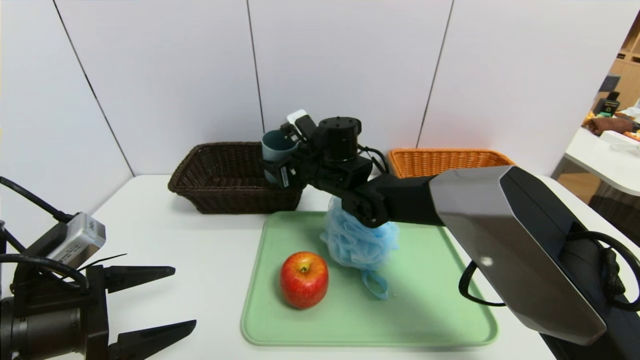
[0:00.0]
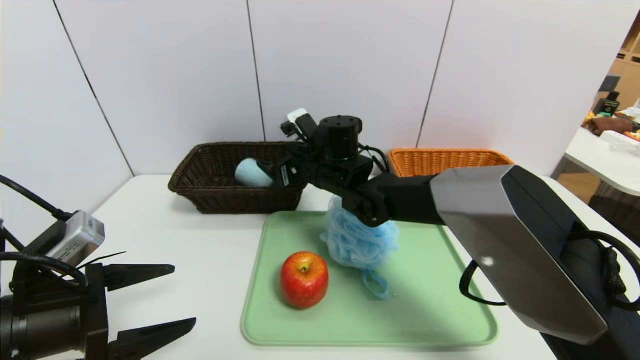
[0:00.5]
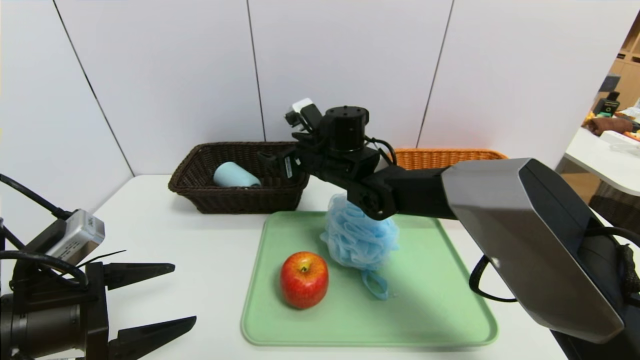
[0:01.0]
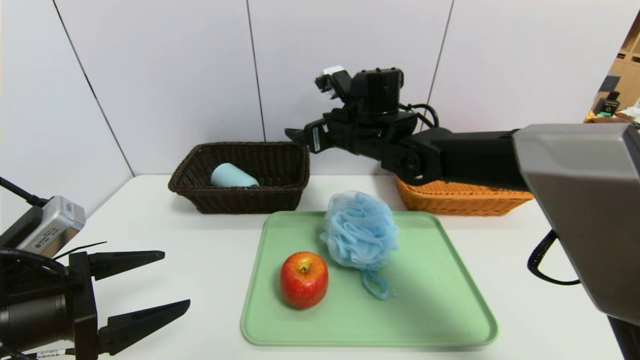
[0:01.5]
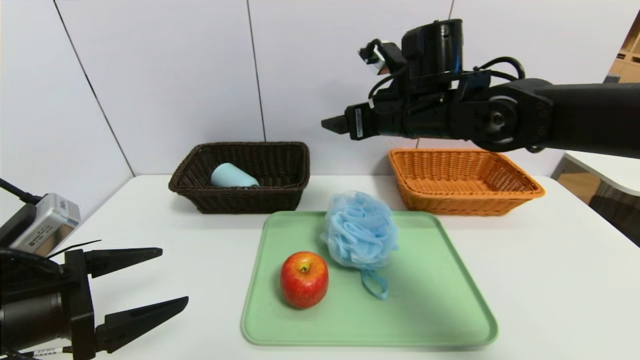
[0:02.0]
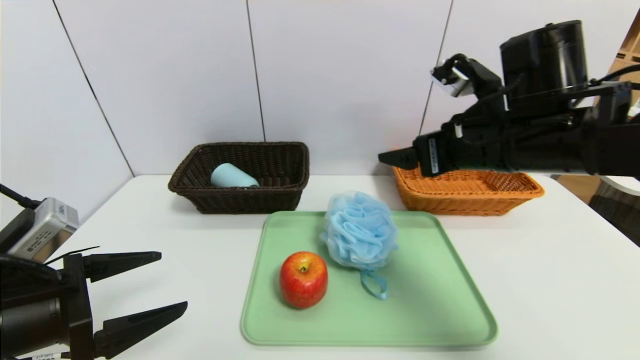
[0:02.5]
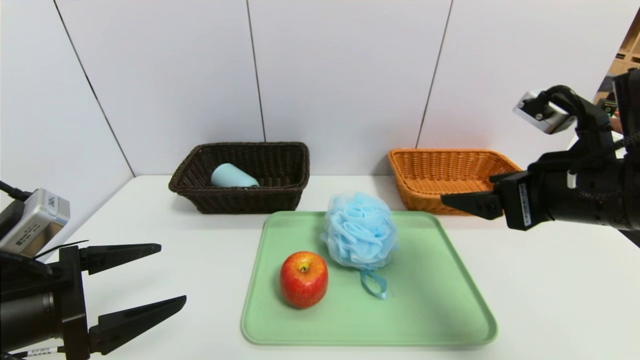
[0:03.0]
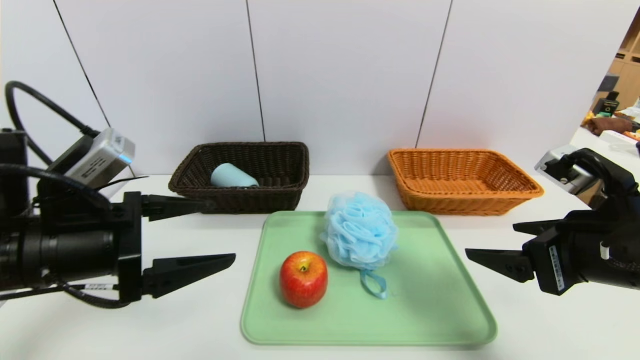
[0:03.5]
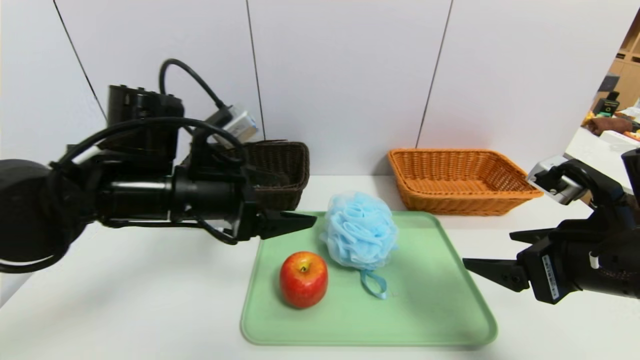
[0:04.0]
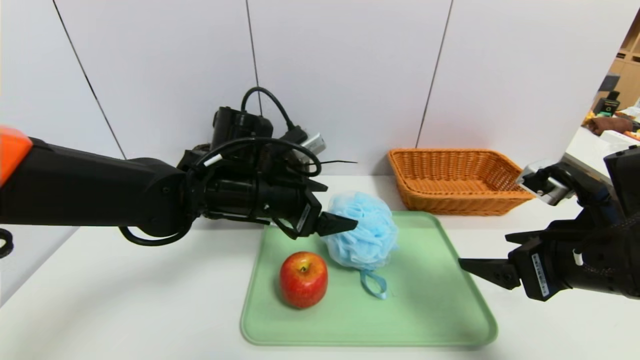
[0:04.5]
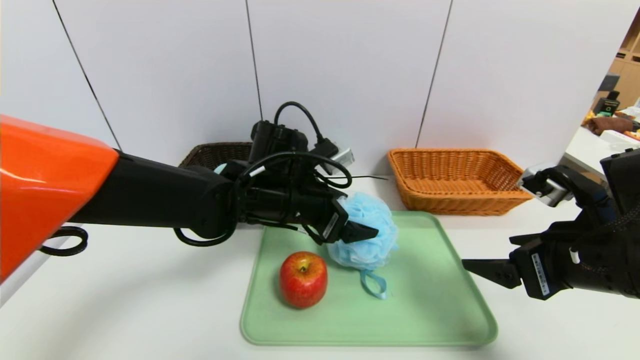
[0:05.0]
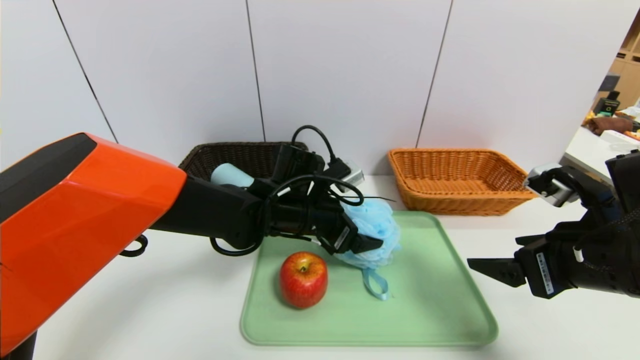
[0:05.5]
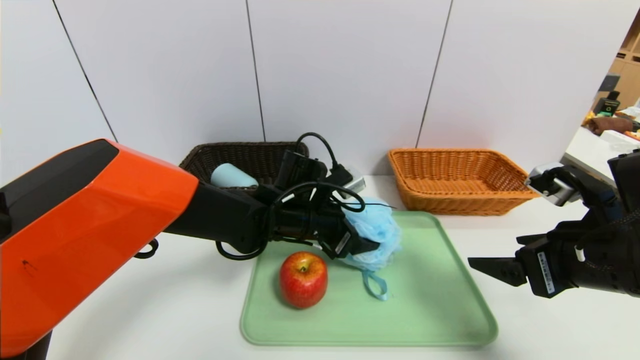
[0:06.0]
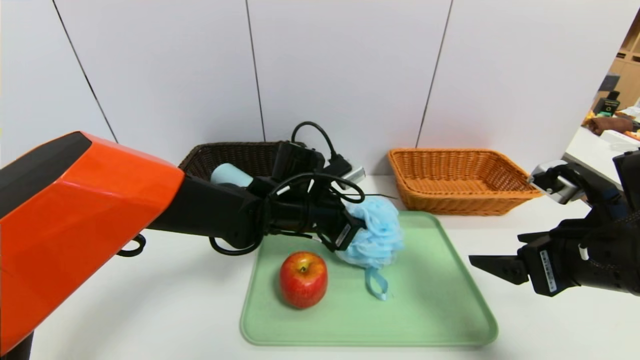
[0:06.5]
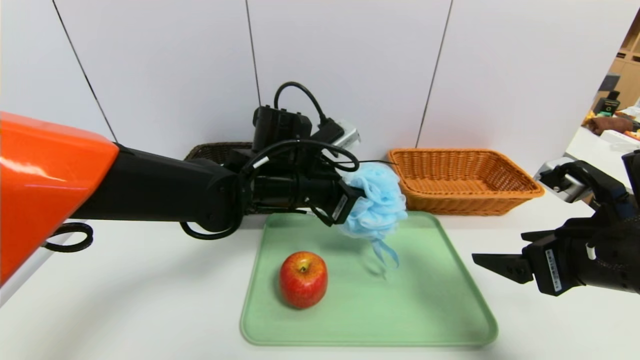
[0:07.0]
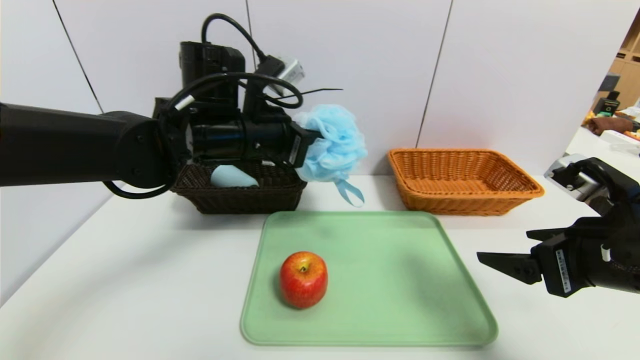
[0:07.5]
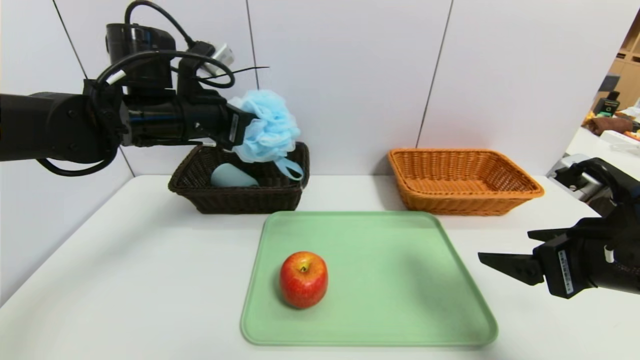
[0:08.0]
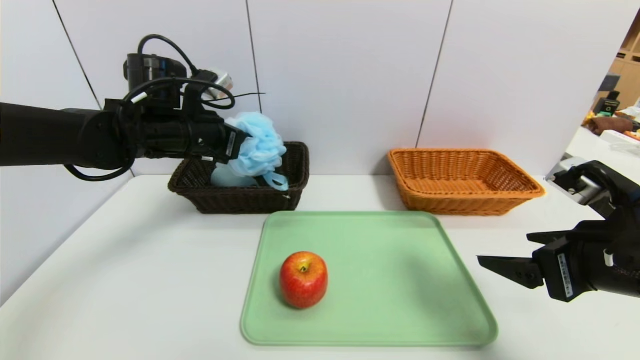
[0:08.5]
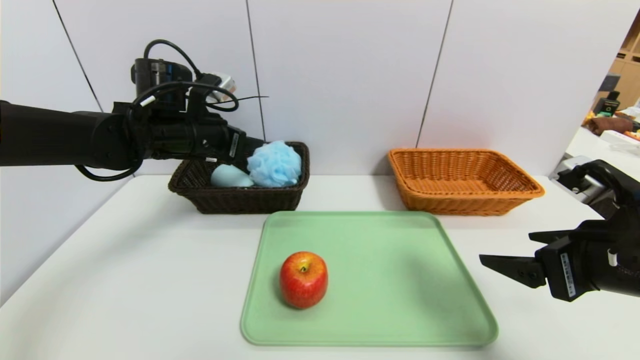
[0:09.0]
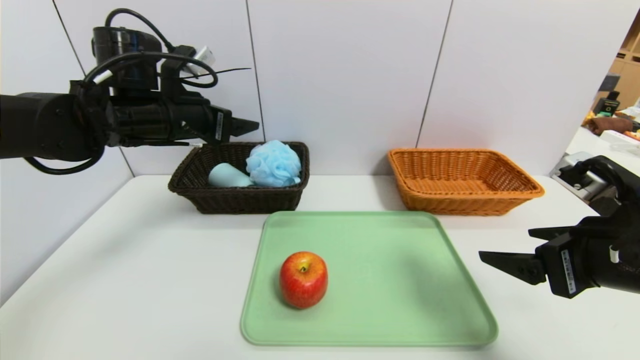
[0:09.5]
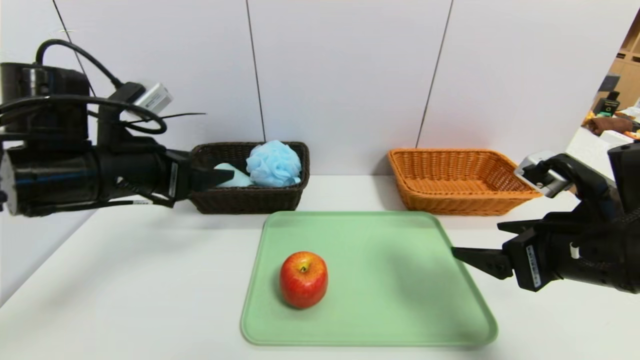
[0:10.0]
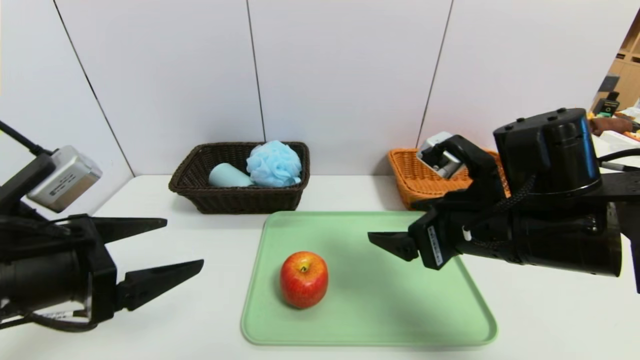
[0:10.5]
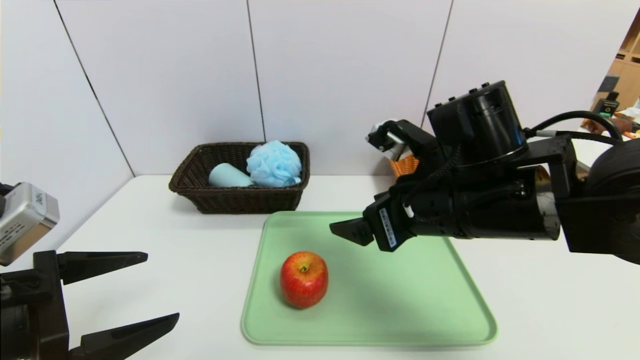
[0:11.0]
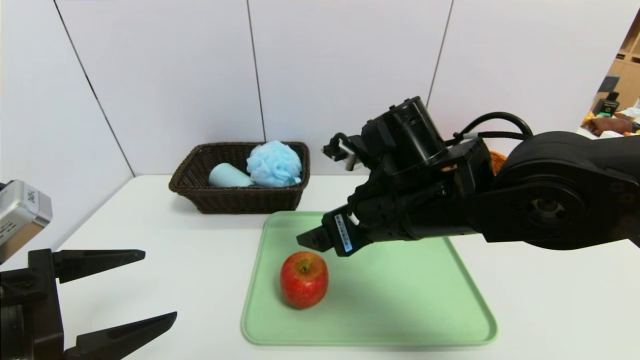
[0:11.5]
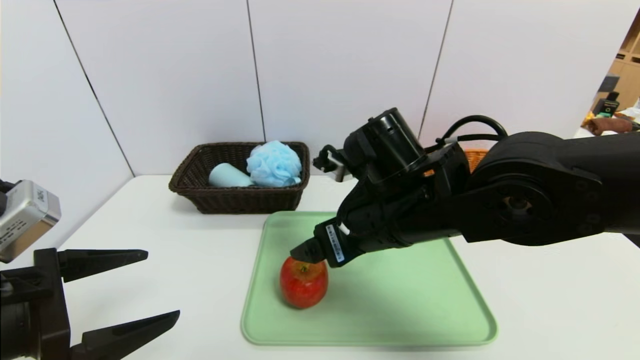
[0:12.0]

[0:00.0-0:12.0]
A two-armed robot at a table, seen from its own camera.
Task of the whole recording: place the food in the right basket with the right gripper, and place the non food items in the left basket with the left gripper.
Step, 0:01.0 to 0:09.5: Grasp the shower sphere and put it in the left basket.
0:00.0 to 0:02.0: The right gripper travels to the right, upward and backward by approximately 15 cm, and opens its fingers.
0:02.0 to 0:04.0: The left gripper is displaced to the right and forward by roughly 20 cm; the right gripper heads backward and to the right, covering roughly 25 cm.
0:04.0 to 0:06.0: The left gripper travels to the right, downward and forward by approximately 15 cm.
0:06.0 to 0:08.0: The left gripper moves to the left and upward, roughly 20 cm, and closes.
0:08.0 to 0:10.0: The left gripper travels backward by some 10 cm, and opens its fingers.
0:10.0 to 0:12.0: The right gripper travels to the left by approximately 20 cm; the left gripper travels backward by about 15 cm.

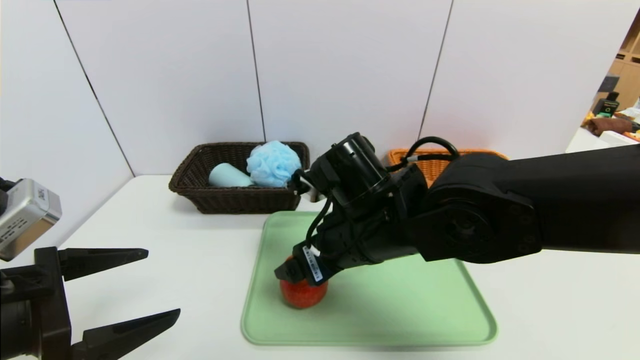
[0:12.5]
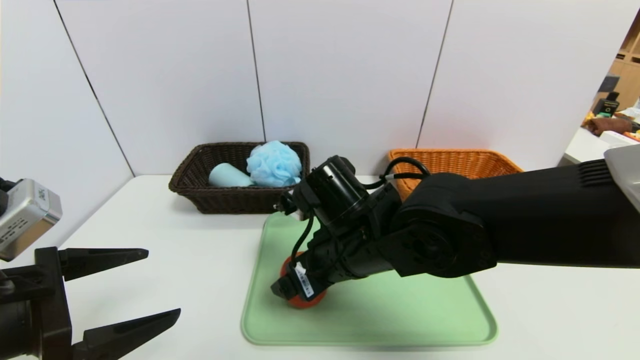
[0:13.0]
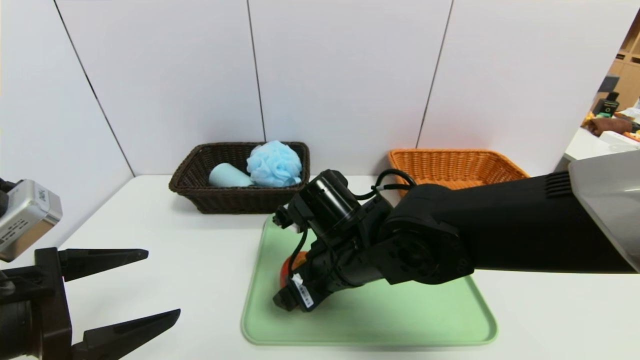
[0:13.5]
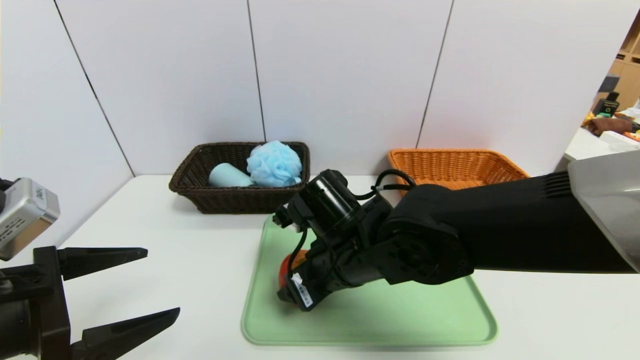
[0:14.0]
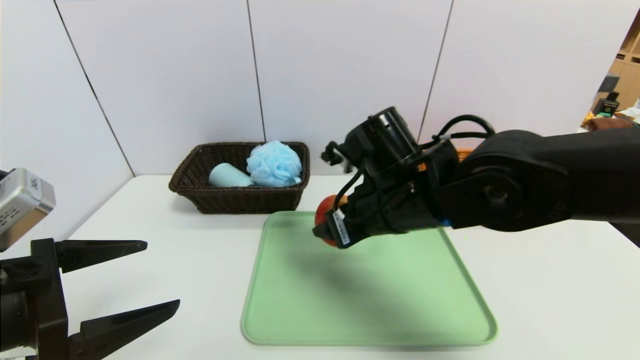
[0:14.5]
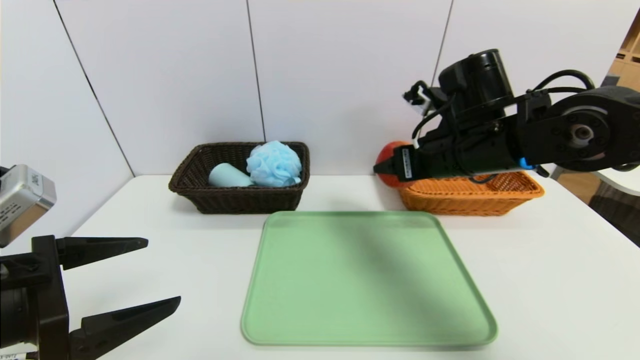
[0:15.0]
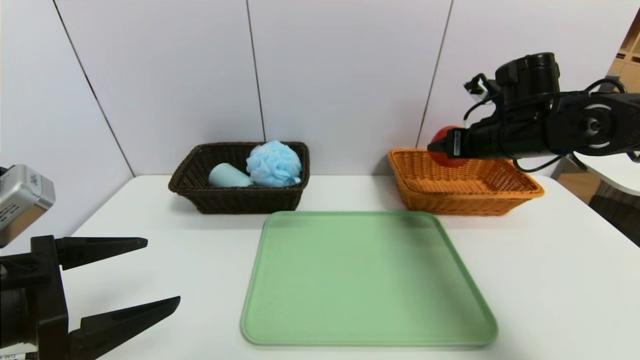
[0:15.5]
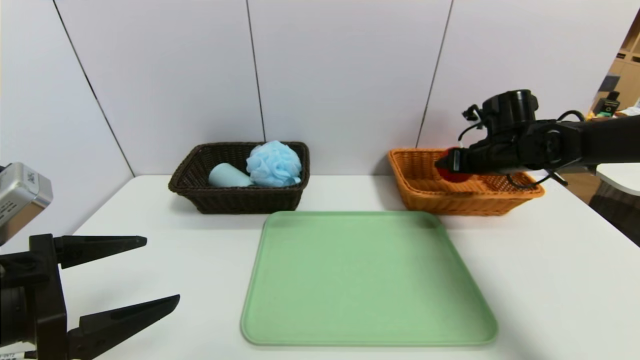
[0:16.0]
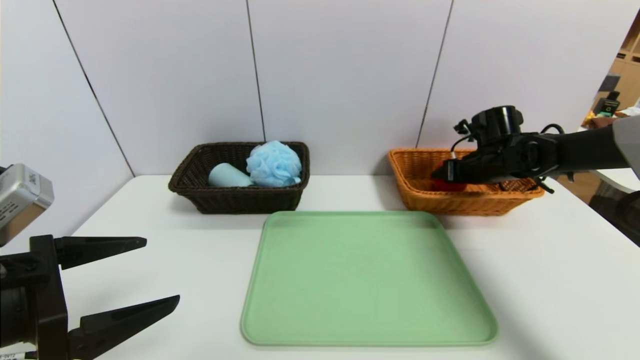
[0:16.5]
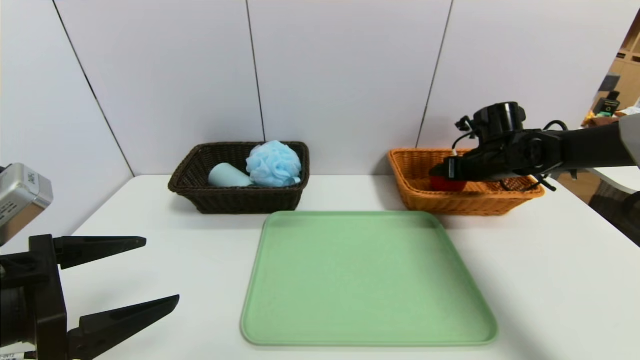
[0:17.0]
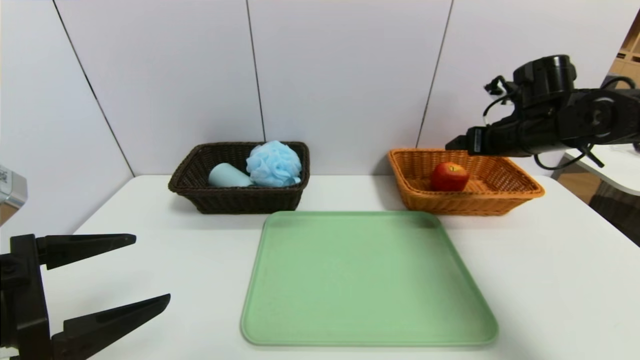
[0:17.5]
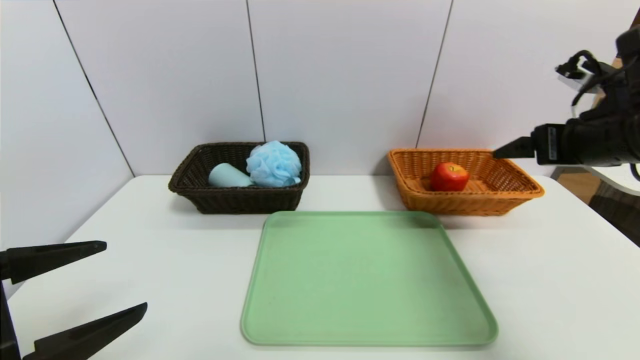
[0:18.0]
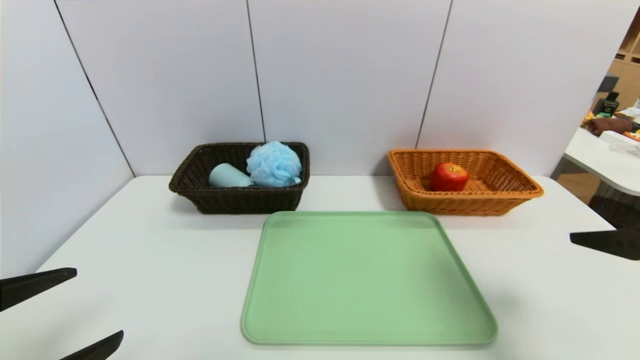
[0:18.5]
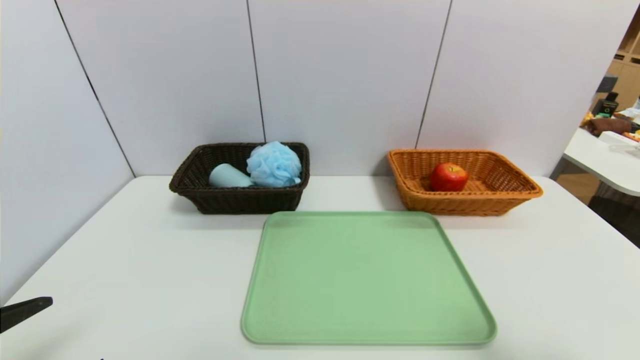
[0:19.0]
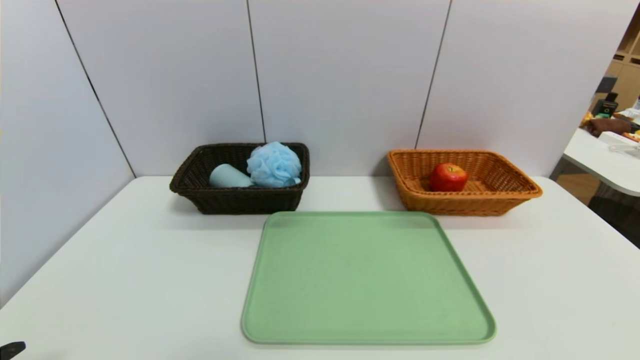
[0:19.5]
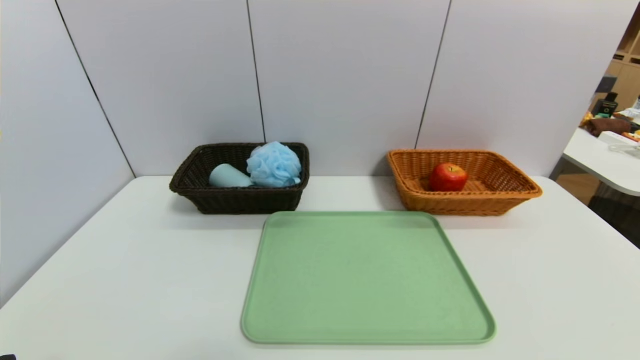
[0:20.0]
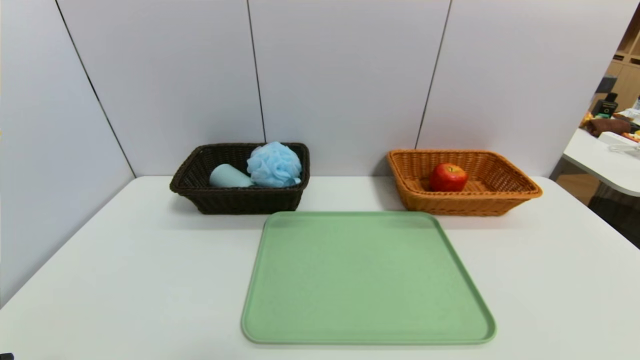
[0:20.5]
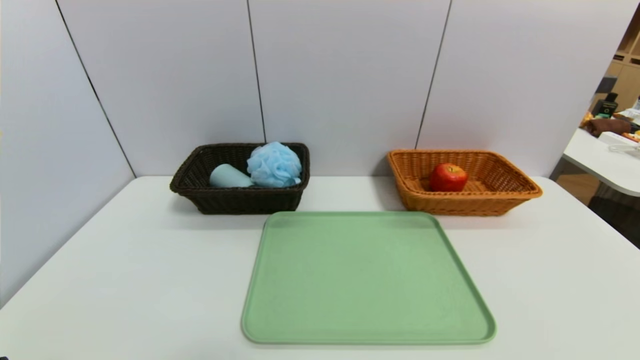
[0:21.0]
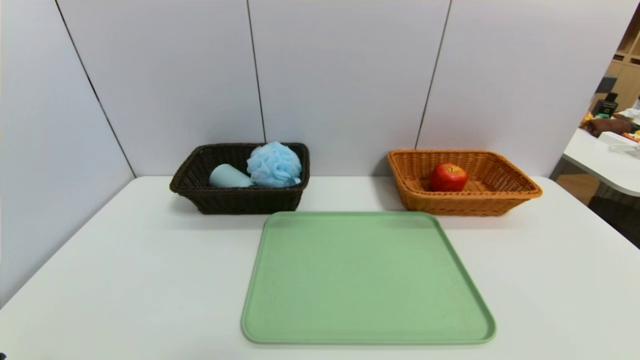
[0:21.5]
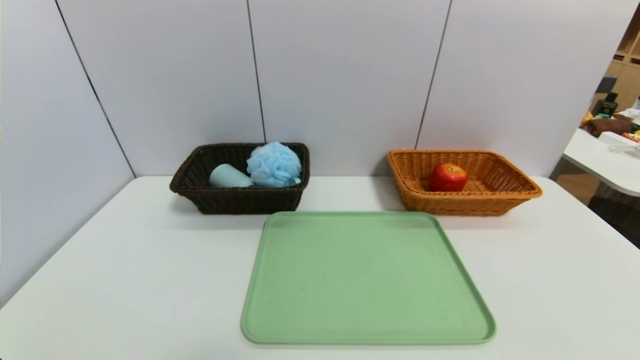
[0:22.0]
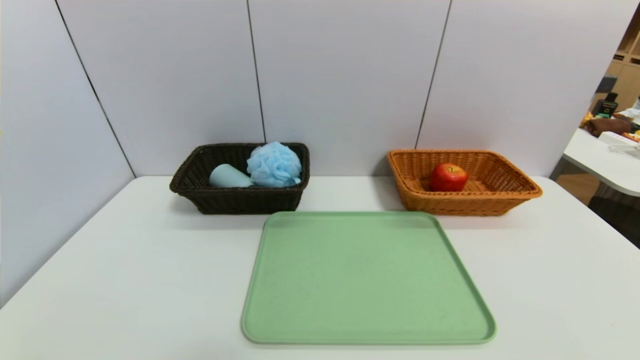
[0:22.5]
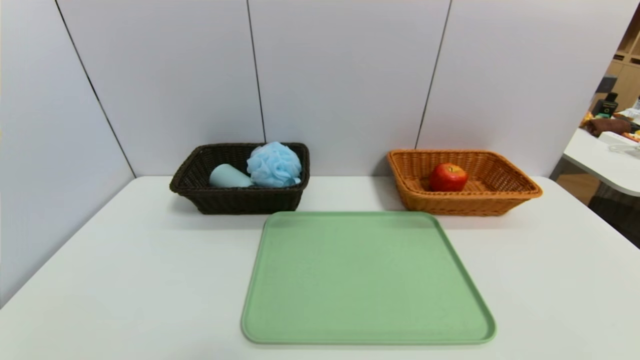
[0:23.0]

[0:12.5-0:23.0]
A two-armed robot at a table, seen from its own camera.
Task of the whole recording: place the food in the right basket with the right gripper, and place the non food items in the left basket with the left gripper.
Step, 0:12.5 to 0:17.0: Grasp the apple and put it in the right basket.
0:12.5 to 0:14.5: The right gripper ends up approximately 5 cm from where it was, and closes its fingers.
0:14.5 to 0:16.5: The right gripper goes some 30 cm to the right and forward.
0:16.5 to 0:19.0: The right gripper shifts some 40 cm backward, and opens its fingers. Meanwhile the left gripper heads backward, covering approximately 10 cm.
0:19.0 to 0:21.0: The right gripper heads backward and downward, covering roughly 15 cm.
